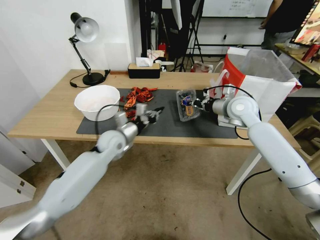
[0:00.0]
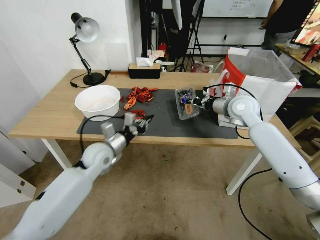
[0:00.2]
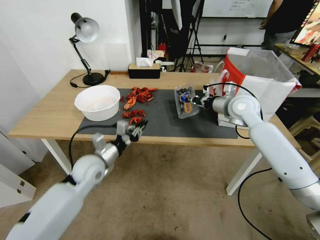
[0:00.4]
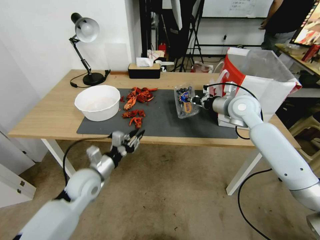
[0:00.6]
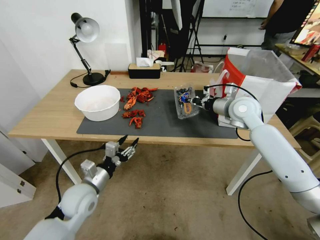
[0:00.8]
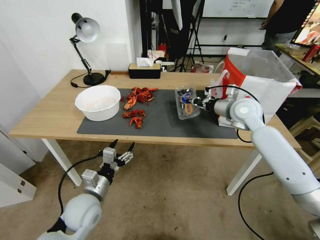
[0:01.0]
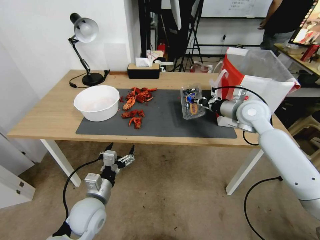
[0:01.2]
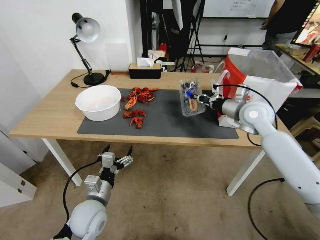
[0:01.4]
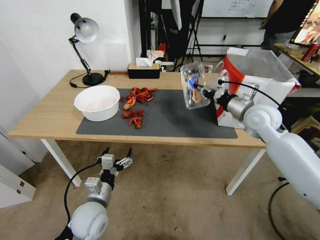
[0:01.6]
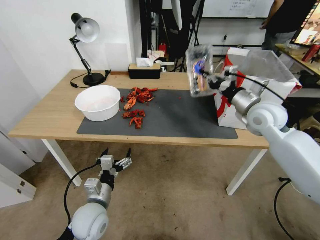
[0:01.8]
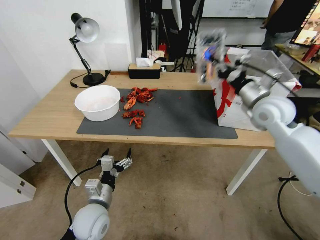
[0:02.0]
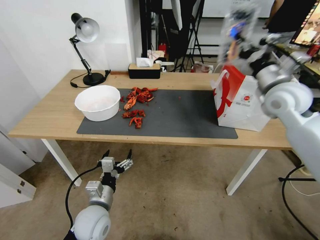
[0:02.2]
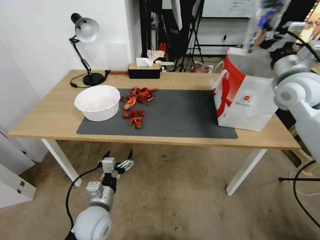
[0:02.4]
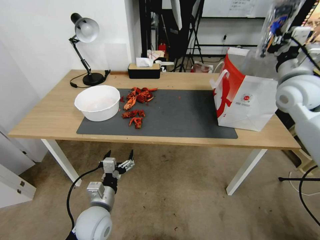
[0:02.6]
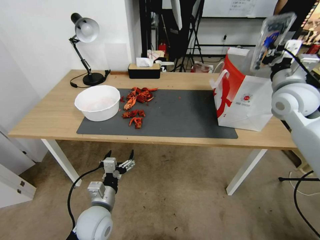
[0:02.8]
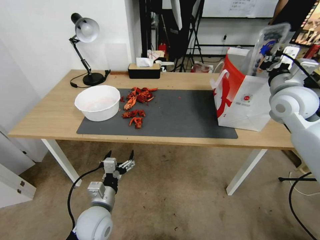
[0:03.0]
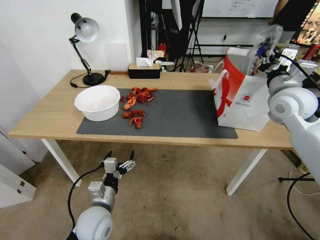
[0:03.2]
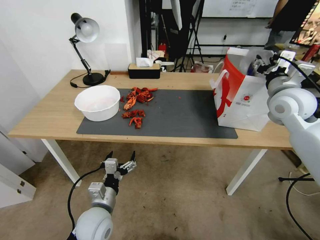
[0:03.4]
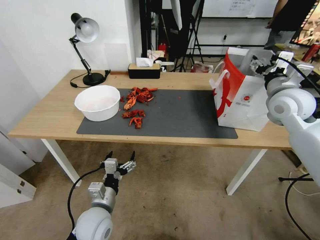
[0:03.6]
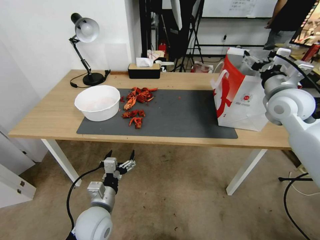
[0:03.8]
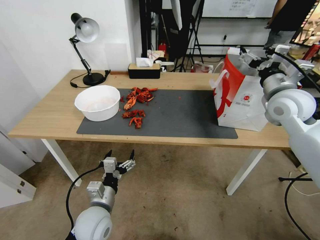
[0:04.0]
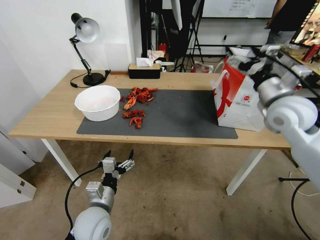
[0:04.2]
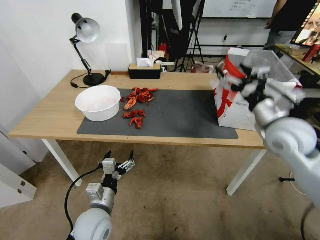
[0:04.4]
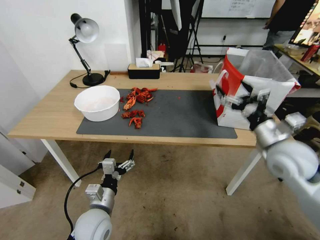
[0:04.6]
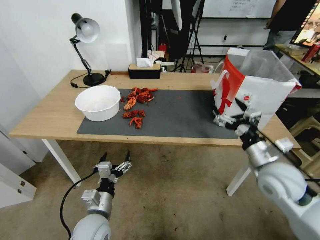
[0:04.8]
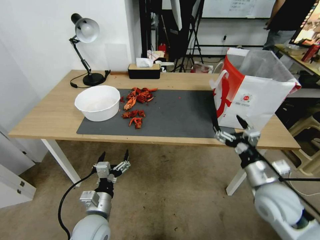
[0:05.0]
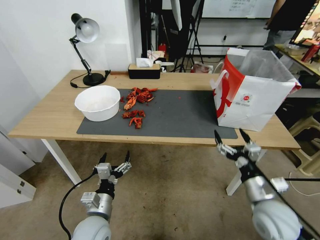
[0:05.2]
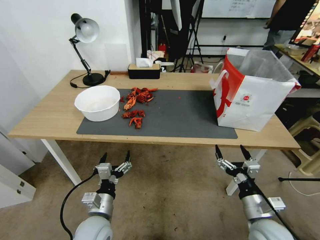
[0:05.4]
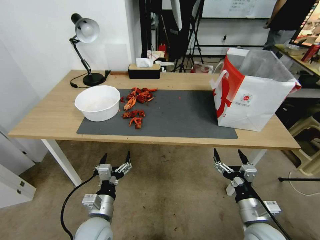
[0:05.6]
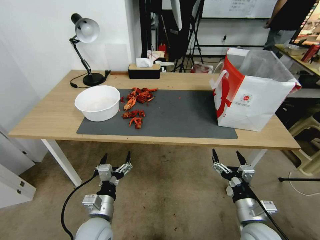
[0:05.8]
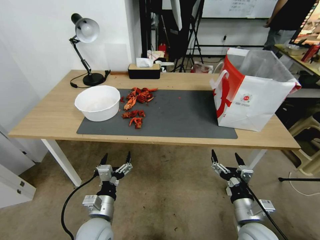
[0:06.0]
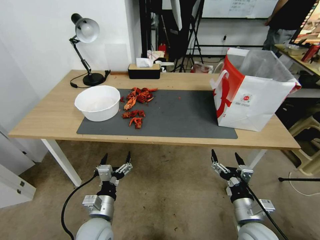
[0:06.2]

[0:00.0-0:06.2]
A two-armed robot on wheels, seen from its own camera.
Task of the whole recording: Close the takeout container lid, then place the container into the takeout bag.
0:00.0 to 0:01.6: The right gripper moves backward, about 5 cm. Meanwhile the left gripper is displaced backward by approximately 20 cm, and opens its fingers.
0:01.6 to 0:03.2: The right gripper heads upward, covering about 5 cm.
0:03.2 to 0:04.6: The right gripper is displaced backward and downward by roughly 15 cm, and opens its fingers.
0:04.6 to 0:06.2: The right gripper shifts about 20 cm downward and backward.

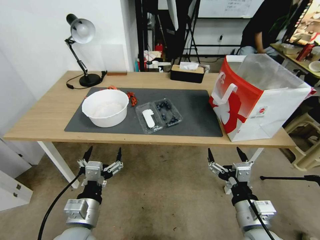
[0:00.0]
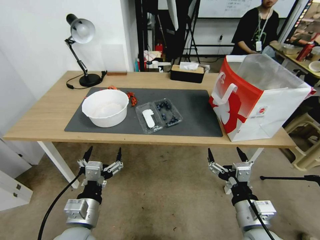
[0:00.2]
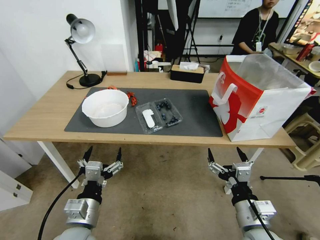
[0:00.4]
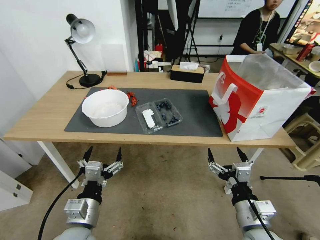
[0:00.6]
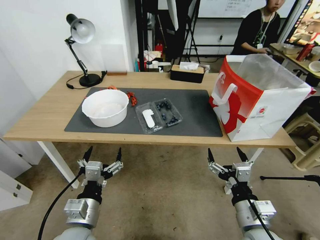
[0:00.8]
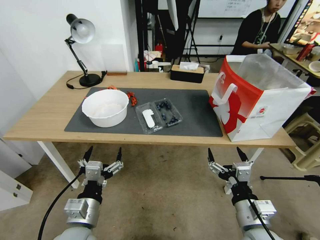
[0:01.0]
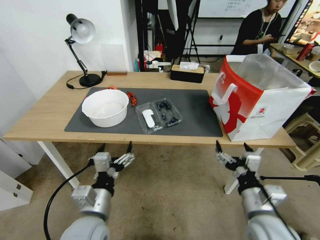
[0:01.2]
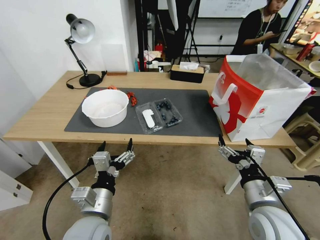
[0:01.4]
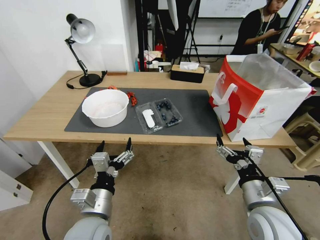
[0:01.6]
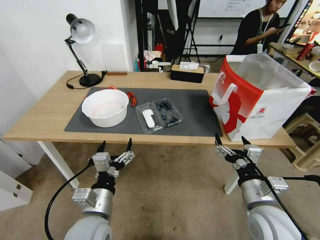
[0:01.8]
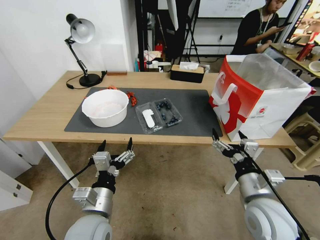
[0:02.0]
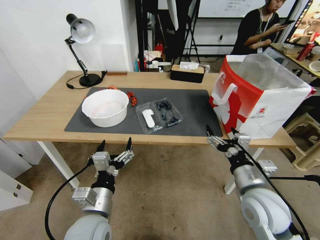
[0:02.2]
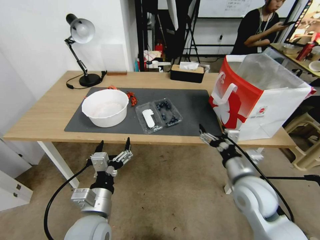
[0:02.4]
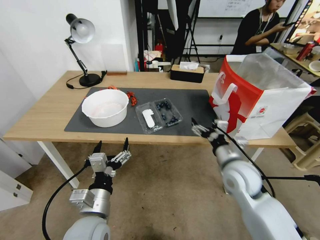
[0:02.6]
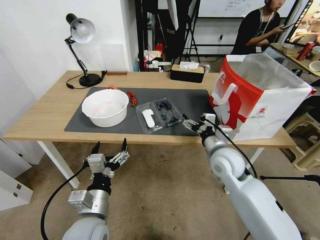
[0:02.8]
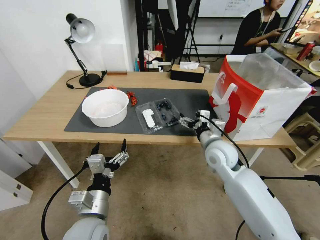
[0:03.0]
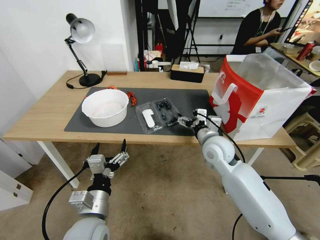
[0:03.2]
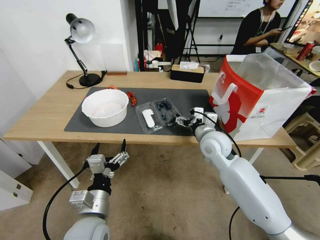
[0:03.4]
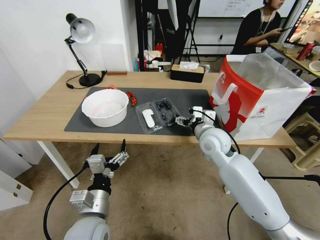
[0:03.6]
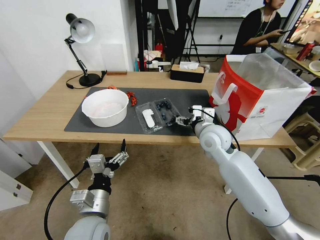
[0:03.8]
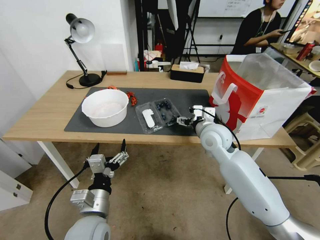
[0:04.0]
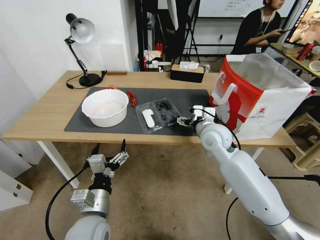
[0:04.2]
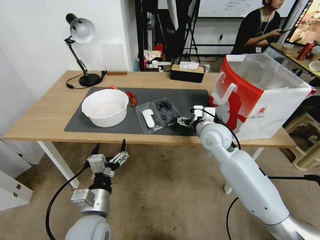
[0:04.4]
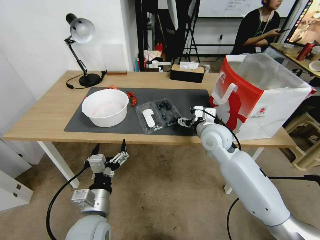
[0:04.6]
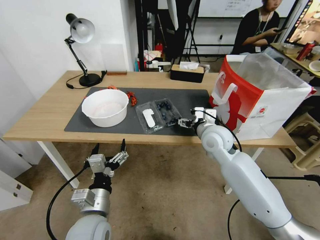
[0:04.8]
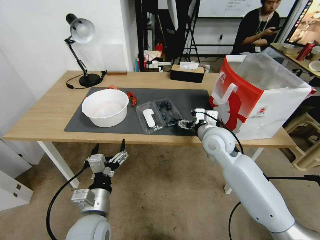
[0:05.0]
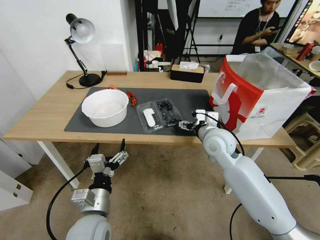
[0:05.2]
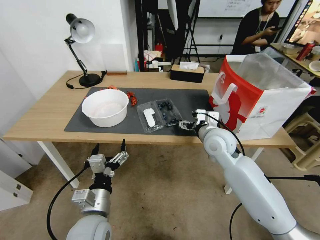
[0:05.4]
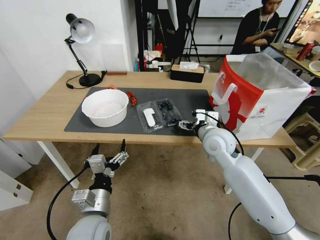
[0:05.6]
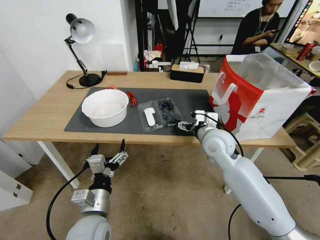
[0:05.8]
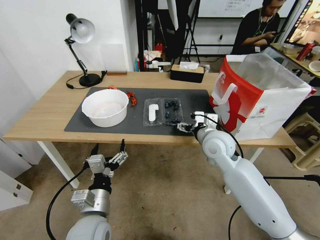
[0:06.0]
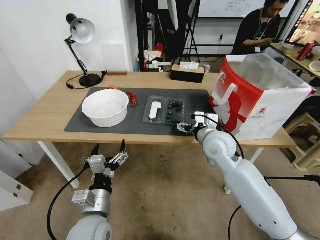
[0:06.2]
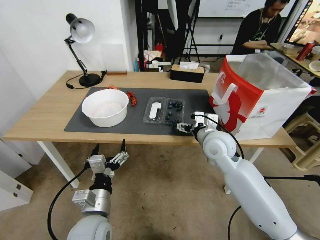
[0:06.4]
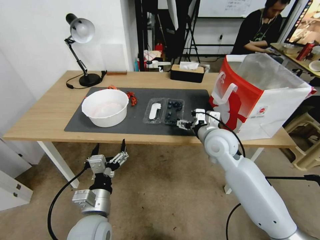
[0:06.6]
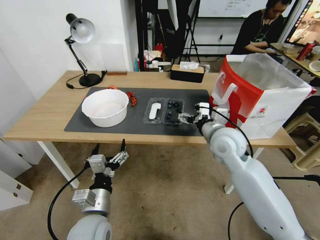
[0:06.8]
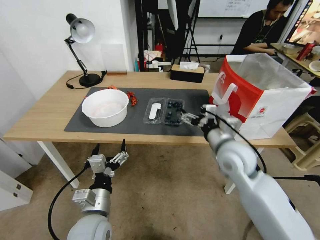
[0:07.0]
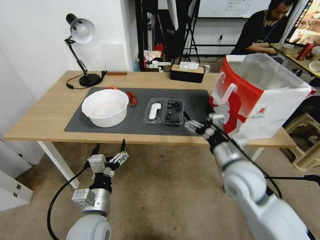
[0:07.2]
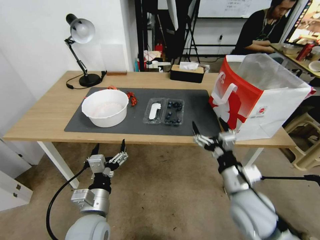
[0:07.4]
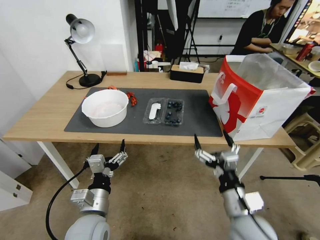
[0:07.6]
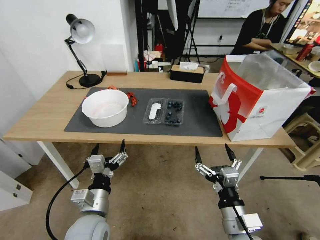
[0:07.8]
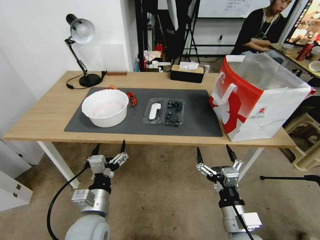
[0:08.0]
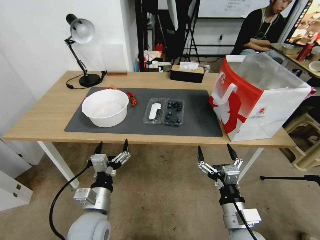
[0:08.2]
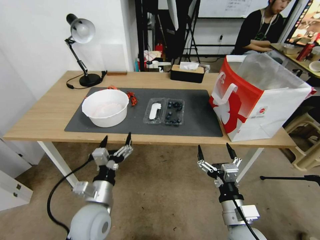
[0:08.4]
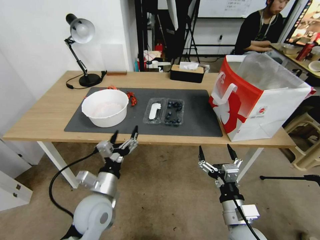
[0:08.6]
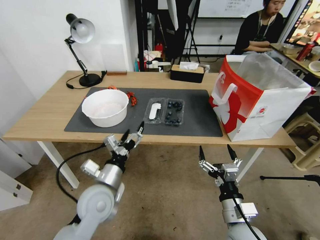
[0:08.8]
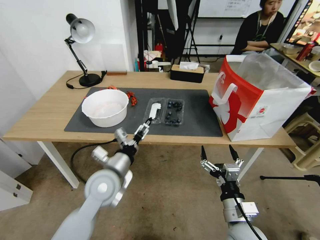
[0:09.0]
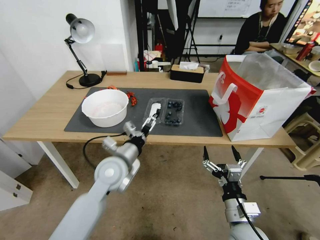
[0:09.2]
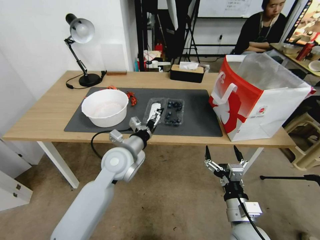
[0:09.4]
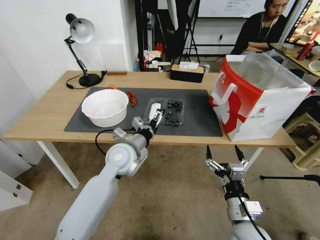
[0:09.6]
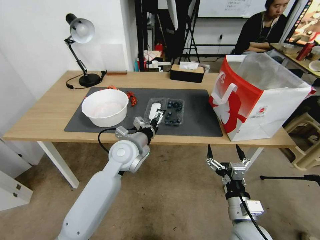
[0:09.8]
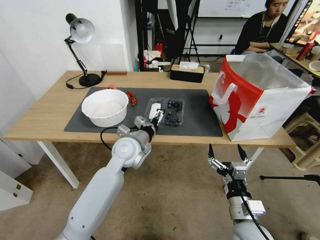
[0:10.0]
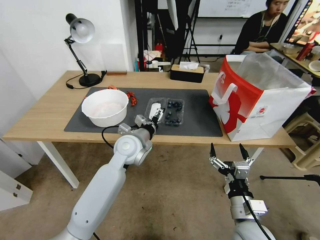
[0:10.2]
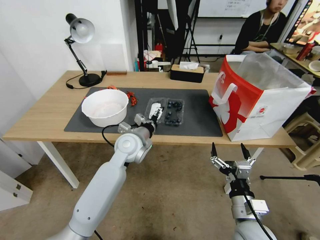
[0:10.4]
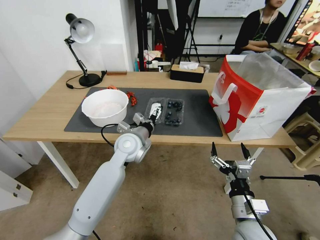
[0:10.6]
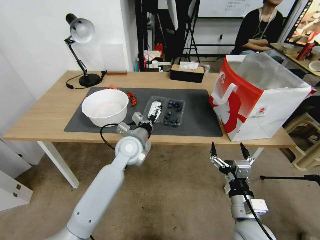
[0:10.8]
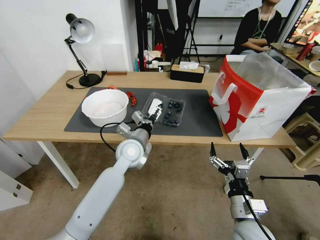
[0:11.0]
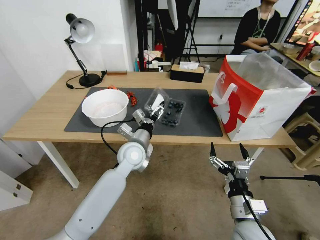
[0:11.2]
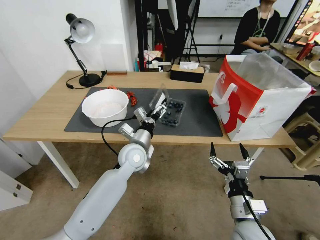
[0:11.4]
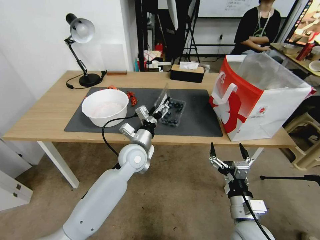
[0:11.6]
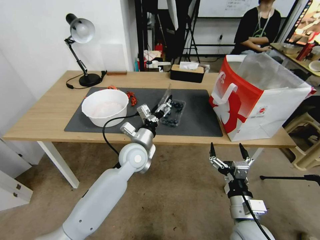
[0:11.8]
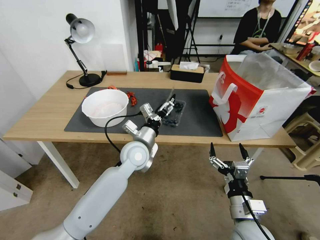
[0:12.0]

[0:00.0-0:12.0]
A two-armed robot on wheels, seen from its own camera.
Task of the whole recording: Close the takeout container lid, then place the container into the takeout bag.
0:01.6 to 0:03.0: The right gripper travels forward by approximately 20 cm.
0:03.0 to 0:04.4: The right gripper changes place by approximately 5 cm.
0:04.4 to 0:06.0: The grippers stay close to where they were, moving slightly.
0:06.0 to 0:07.6: The right gripper is displaced backward by approximately 20 cm.
0:07.6 to 0:09.0: The right gripper moves downward, about 5 cm. Meanwhile the left gripper moves forward, approximately 10 cm.
0:09.0 to 0:10.4: The left gripper shifts about 15 cm forward and to the right.

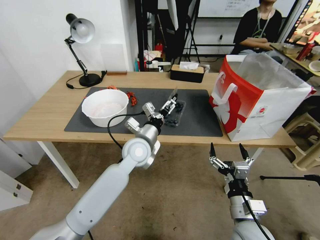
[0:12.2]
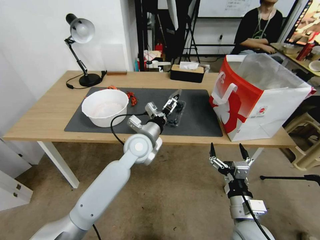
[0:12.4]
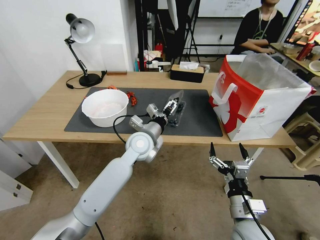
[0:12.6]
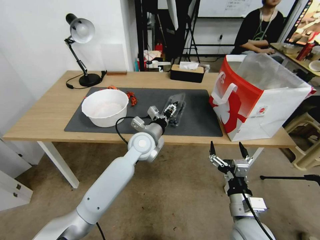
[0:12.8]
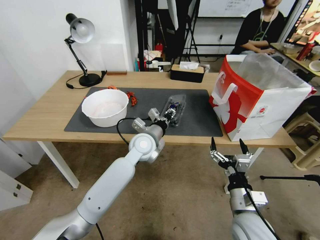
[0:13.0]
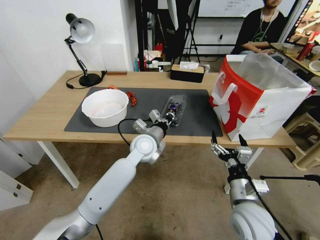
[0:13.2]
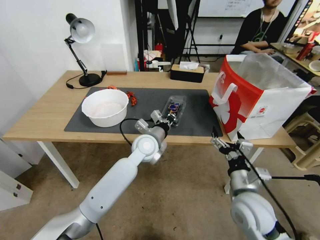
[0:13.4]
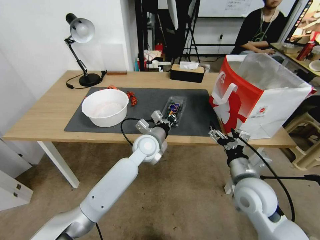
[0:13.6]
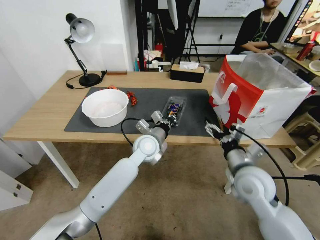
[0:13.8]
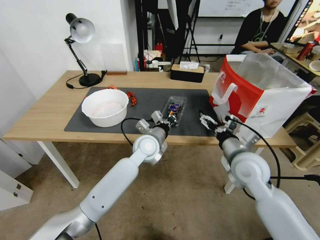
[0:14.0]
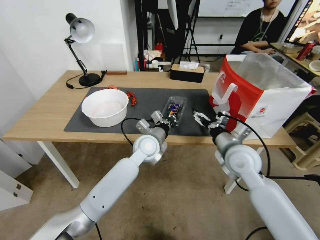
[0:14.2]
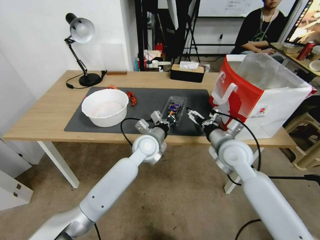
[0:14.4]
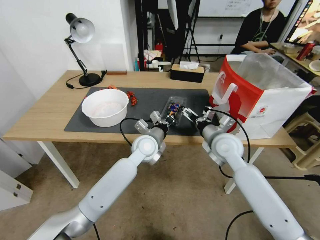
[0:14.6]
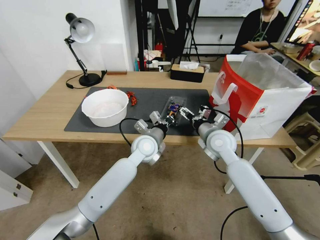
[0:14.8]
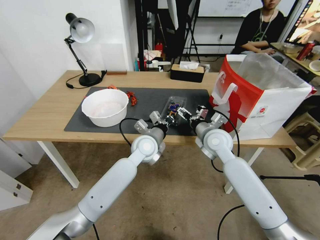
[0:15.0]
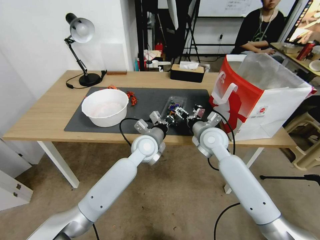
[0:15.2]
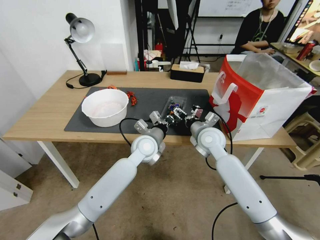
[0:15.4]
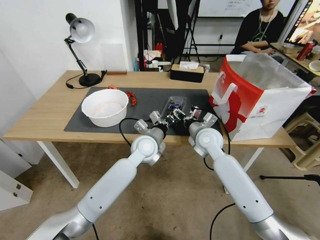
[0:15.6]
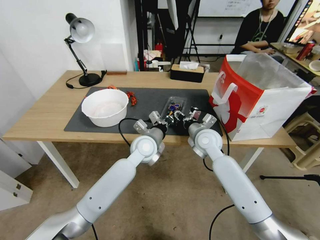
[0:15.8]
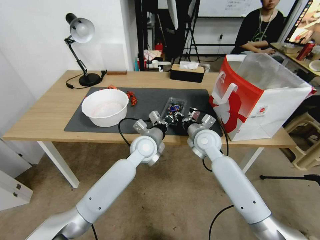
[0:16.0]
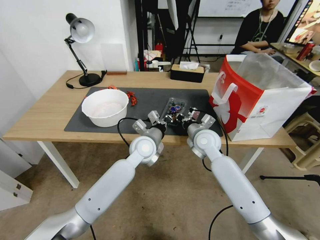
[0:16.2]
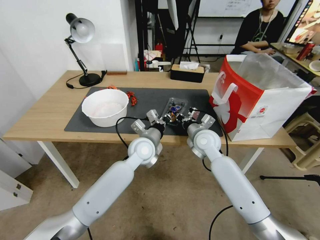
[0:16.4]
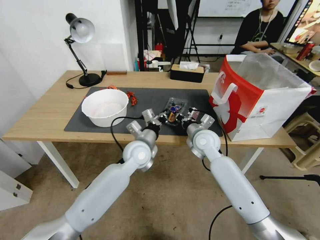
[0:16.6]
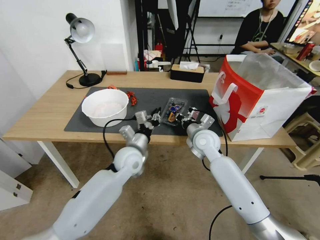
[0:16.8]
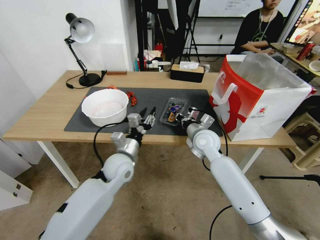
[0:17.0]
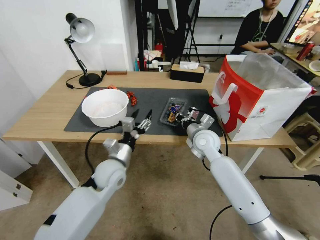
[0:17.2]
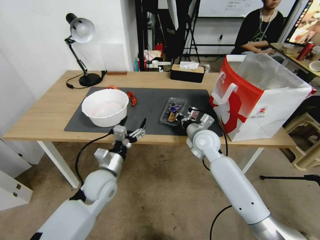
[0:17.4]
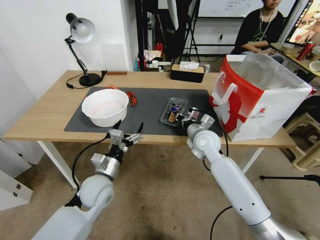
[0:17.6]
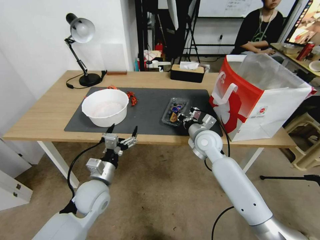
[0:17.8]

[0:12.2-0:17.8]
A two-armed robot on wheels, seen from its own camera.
Task of the whole recording: Close the takeout container lid, then place the container into the takeout bag.
0:12.2 to 0:13.6: The right gripper travels forward and upward by roughly 10 cm. Meanwhile the left gripper closes its fingers.
0:13.6 to 0:15.0: The right gripper moves forward, approximately 20 cm.
0:15.0 to 0:16.4: The right gripper closes up.
0:16.4 to 0:17.8: The left gripper is displaced to the left and backward by about 20 cm, and opens its fingers.
